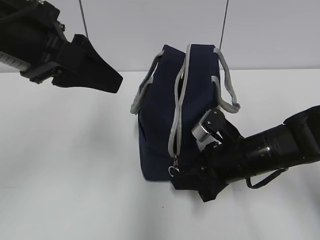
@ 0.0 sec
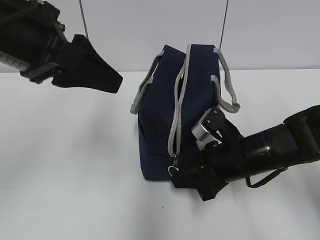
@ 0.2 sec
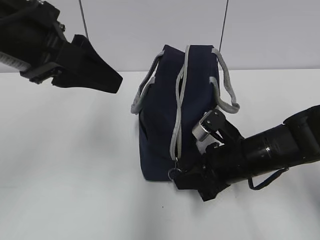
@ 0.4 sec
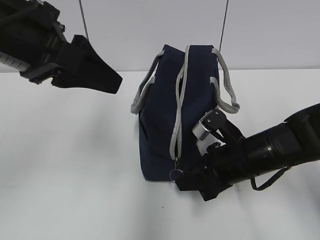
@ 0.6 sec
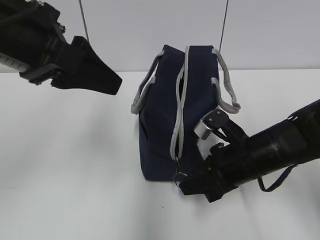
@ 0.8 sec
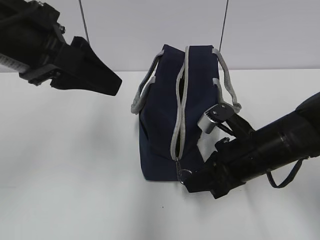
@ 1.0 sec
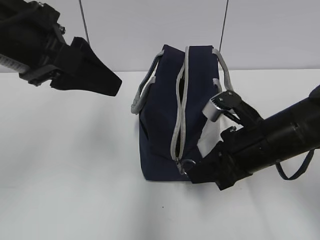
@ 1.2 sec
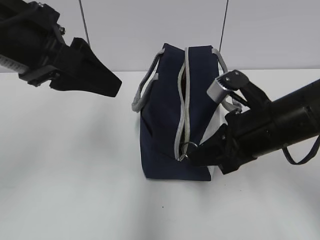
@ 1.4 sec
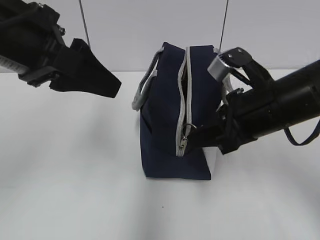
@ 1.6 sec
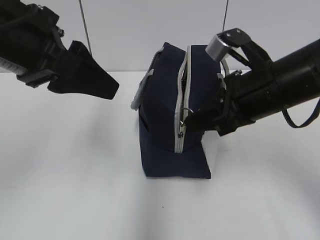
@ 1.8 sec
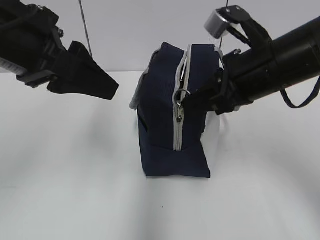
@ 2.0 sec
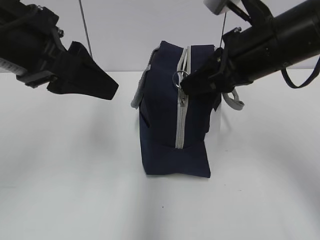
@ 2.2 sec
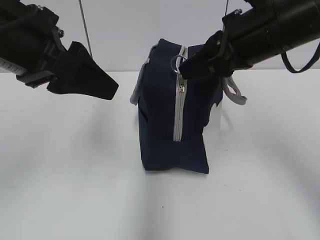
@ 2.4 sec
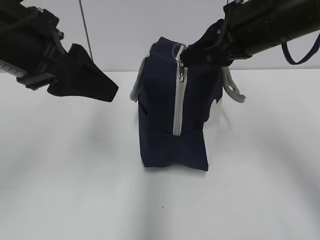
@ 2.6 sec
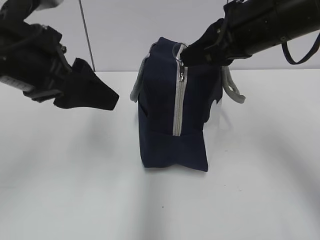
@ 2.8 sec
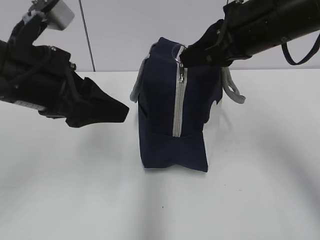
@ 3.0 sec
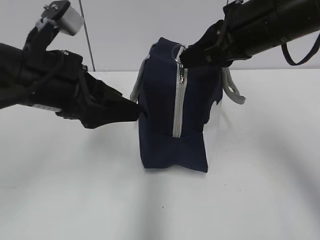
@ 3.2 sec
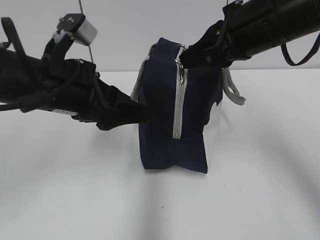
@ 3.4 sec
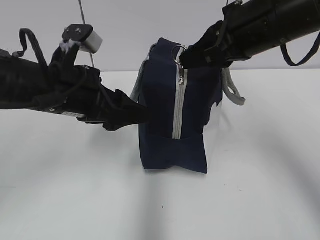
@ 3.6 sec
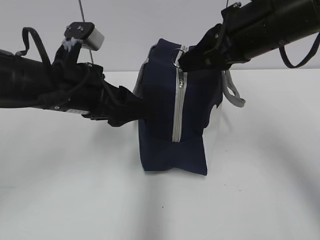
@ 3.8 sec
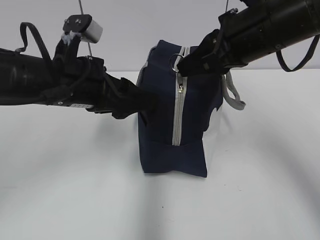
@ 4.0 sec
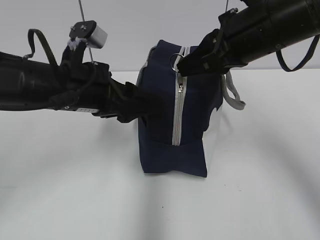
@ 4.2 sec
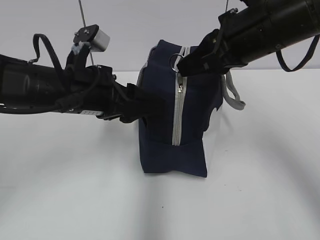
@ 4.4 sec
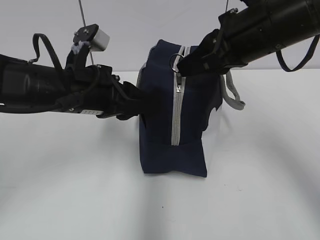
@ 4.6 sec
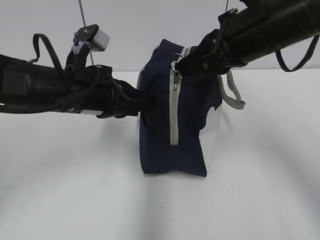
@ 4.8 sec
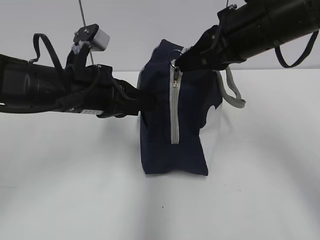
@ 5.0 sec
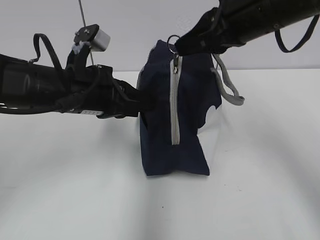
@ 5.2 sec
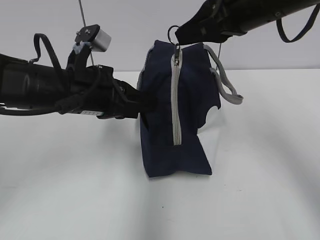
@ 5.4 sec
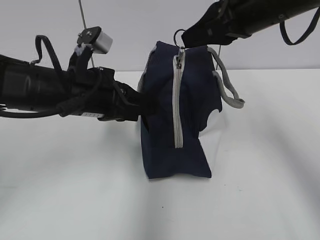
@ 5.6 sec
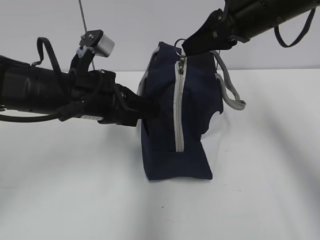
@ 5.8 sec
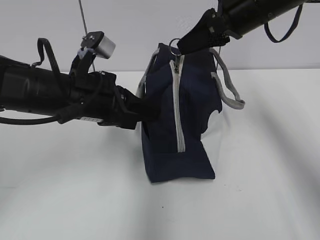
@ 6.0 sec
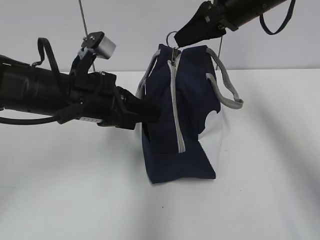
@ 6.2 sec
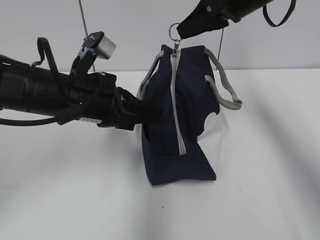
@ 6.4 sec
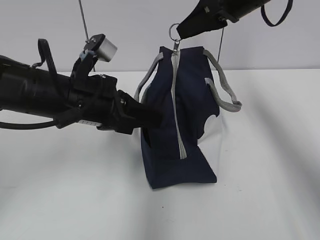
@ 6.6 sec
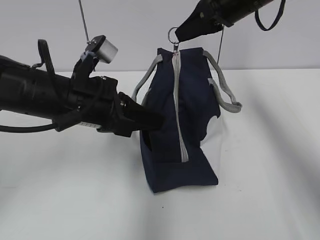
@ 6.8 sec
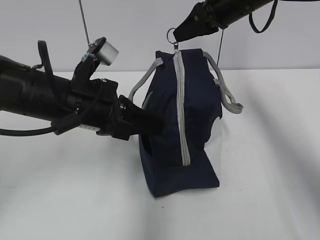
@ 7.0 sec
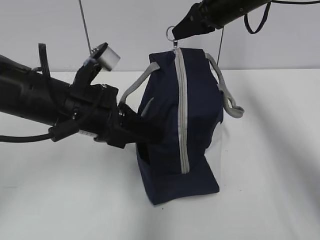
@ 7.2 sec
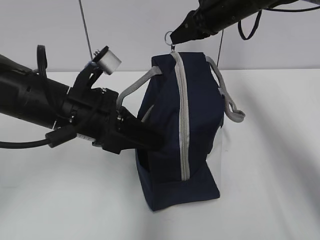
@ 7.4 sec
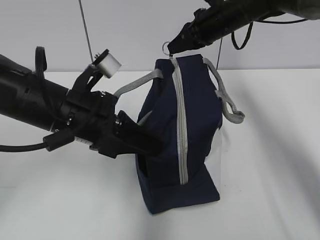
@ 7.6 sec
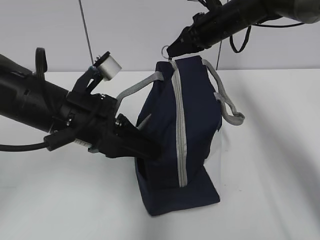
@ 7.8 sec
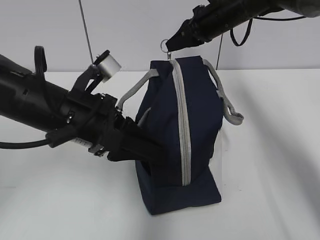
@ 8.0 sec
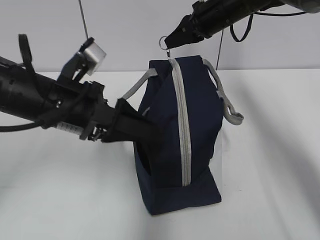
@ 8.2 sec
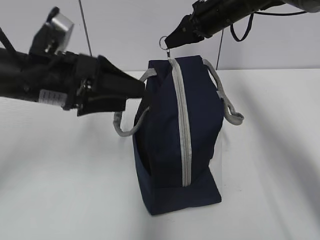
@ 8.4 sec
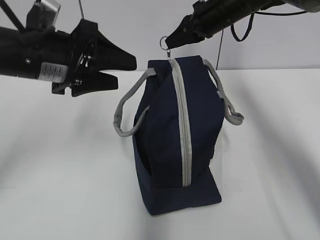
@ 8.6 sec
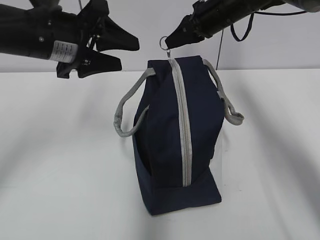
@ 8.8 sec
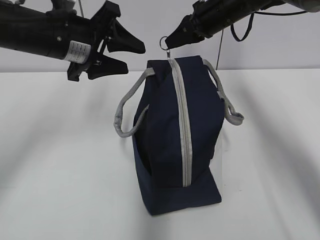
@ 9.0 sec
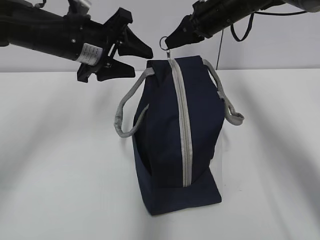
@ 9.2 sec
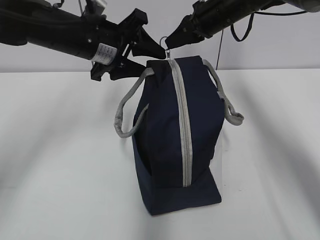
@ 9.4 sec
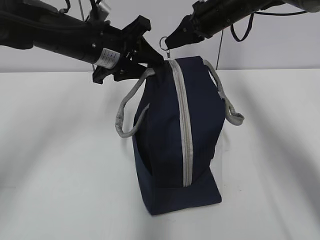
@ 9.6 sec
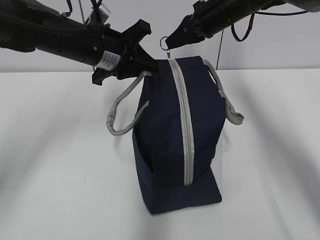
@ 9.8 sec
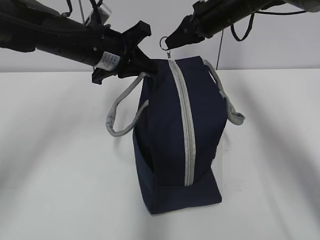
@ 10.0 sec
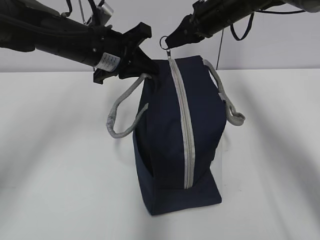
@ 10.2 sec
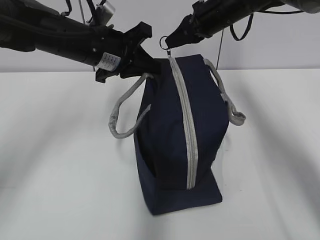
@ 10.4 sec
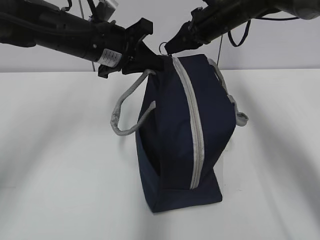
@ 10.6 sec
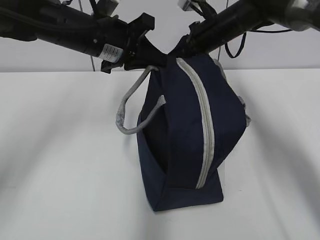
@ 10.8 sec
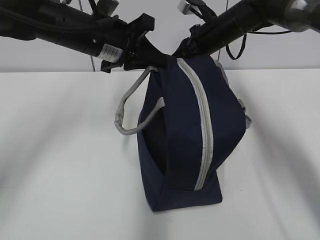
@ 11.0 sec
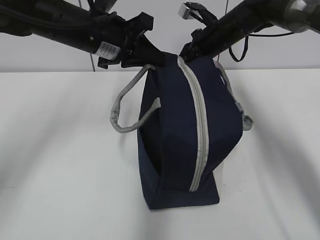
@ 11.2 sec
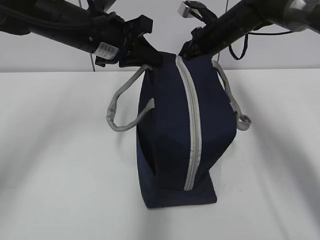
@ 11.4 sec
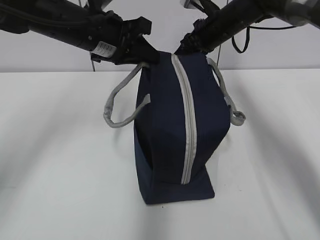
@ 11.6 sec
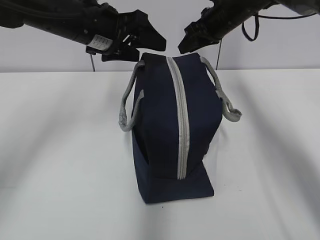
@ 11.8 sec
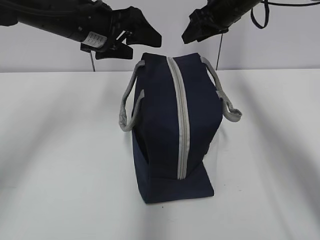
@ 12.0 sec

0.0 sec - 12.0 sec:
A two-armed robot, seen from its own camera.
Step, 0.0 sec - 4.8 sec: Grab the lunch bag with your left hand.
Step, 5.0 sec - 11.2 sec: Pull the zipper with your right hand.
Step, 11.4 sec - 11.6 sec: Grab the lunch bag with your left hand.
0.0 sec - 1.6 sec: The right gripper goes about 10 cm upward.
1.6 sec - 3.0 sec: The right gripper moves upward, roughly 10 cm.
3.0 sec - 4.4 sec: The left gripper is displaced downward and forward by approximately 10 cm.
4.4 sec - 6.0 sec: The right gripper moves forward, about 5 cm, while the left gripper closes up.
6.0 sec - 7.6 sec: The right gripper is displaced forward and downward by about 15 cm.
7.6 sec - 9.0 sec: The left gripper is displaced forward and upward by approximately 10 cm, and opens up.
9.0 sec - 10.4 sec: The left gripper moves approximately 5 cm, and closes.
10.4 sec - 12.0 sec: The left gripper opens up. Meanwhile the right gripper opens up.

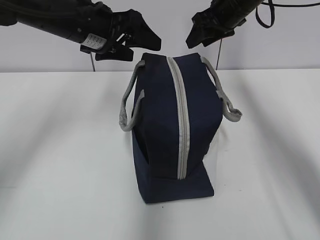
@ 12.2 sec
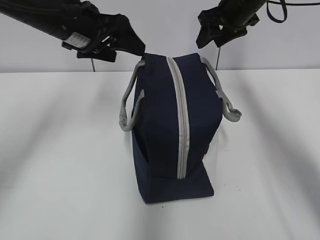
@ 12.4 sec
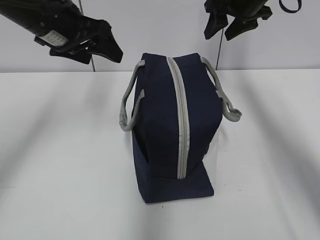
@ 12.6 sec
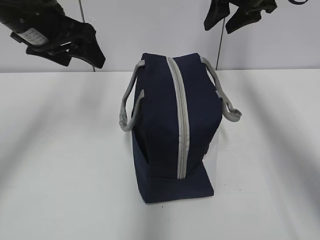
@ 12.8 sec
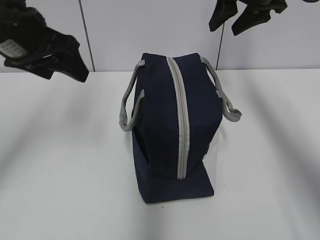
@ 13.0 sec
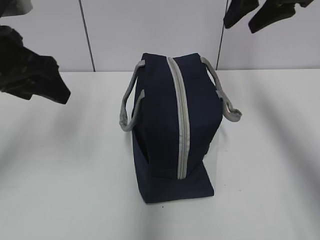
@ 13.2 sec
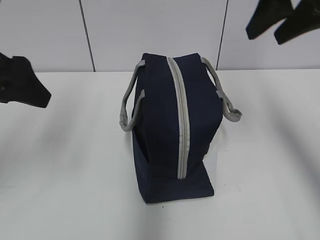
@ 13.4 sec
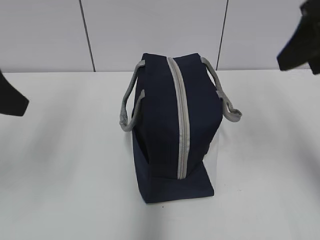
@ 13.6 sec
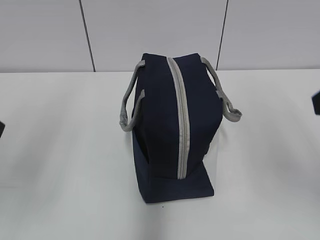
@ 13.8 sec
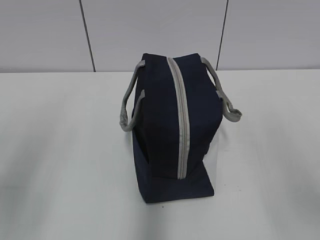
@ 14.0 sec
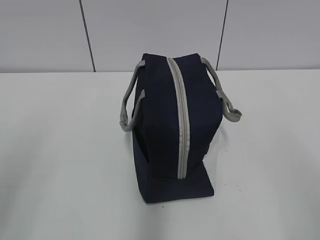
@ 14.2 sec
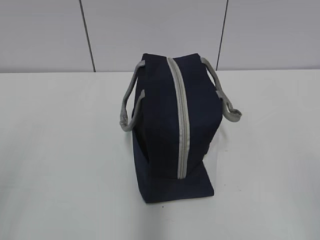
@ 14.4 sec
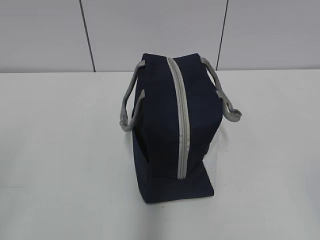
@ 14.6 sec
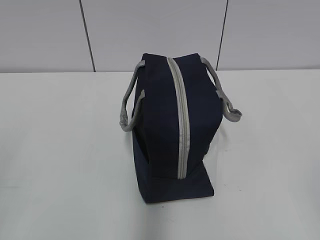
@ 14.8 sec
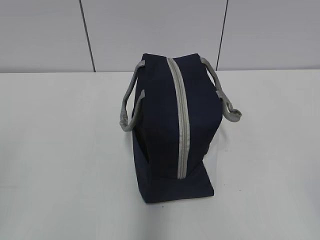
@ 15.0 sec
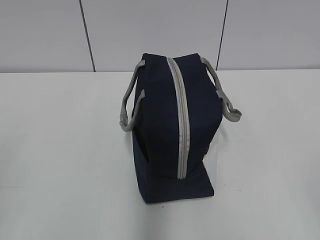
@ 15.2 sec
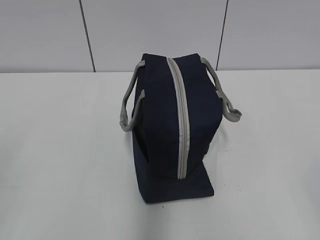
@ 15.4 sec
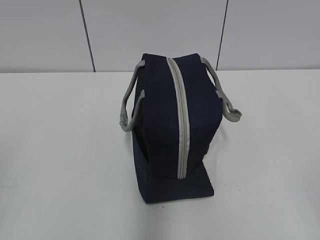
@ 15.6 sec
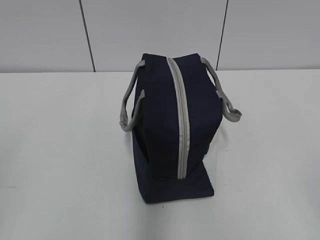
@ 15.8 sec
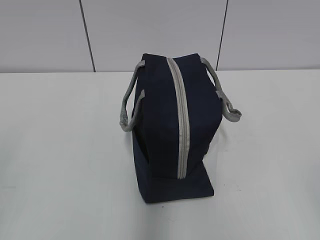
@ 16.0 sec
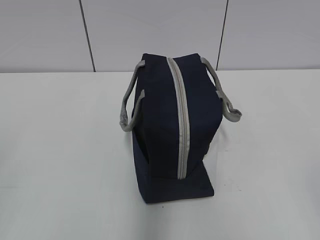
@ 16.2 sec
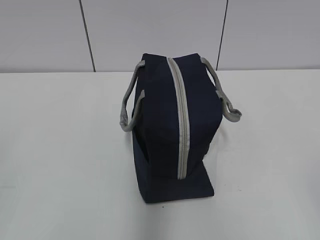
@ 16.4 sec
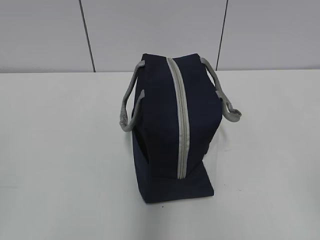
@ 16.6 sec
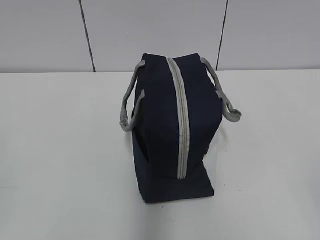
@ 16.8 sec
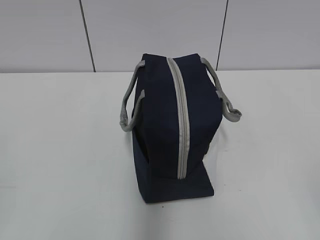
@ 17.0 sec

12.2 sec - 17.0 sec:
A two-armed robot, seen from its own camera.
12.2 sec - 13.8 sec: The right gripper is displaced backward by roughly 35 cm. The left gripper goes about 25 cm backward and to the left.
13.8 sec - 15.4 sec: The right gripper is displaced backward and downward by approximately 20 cm.
